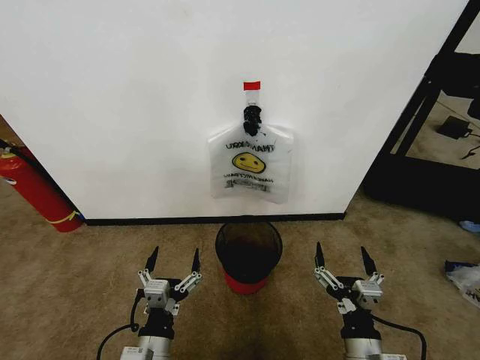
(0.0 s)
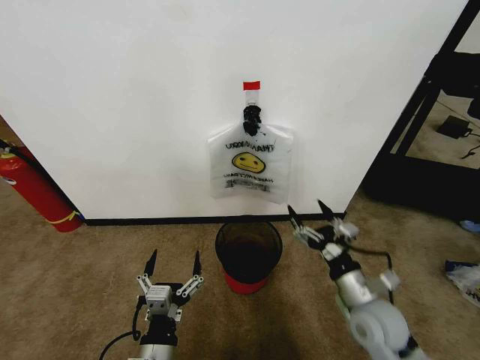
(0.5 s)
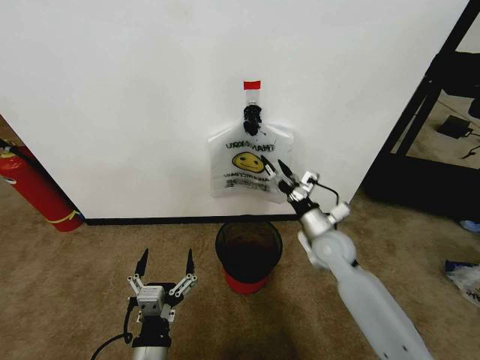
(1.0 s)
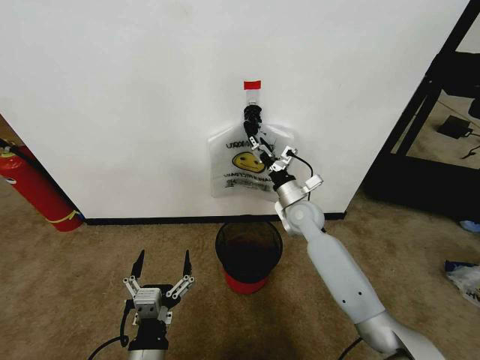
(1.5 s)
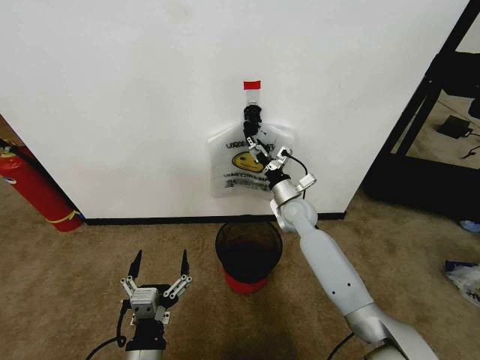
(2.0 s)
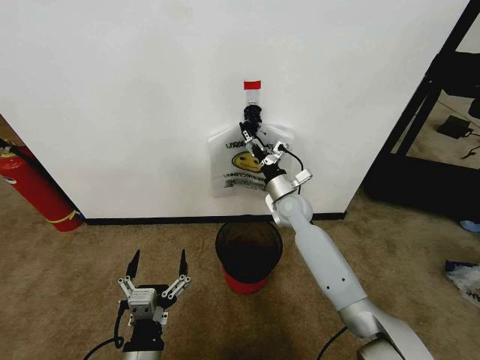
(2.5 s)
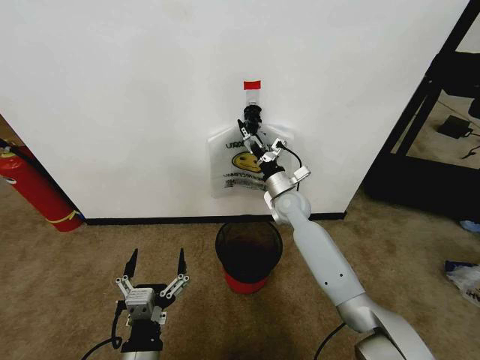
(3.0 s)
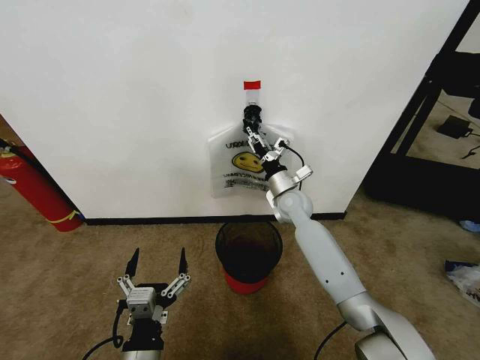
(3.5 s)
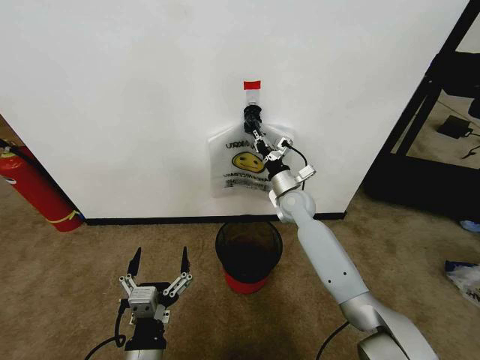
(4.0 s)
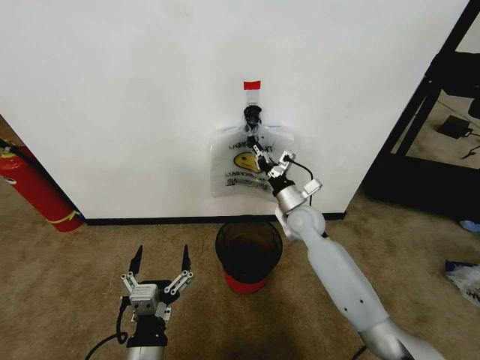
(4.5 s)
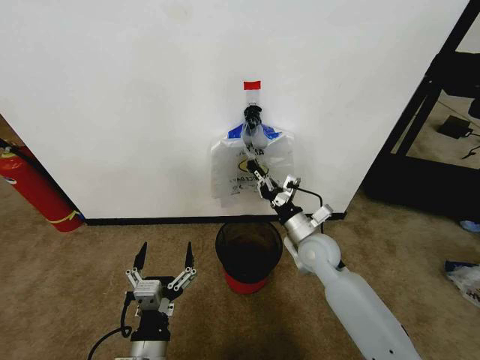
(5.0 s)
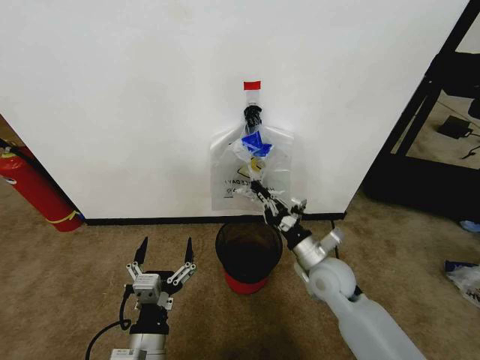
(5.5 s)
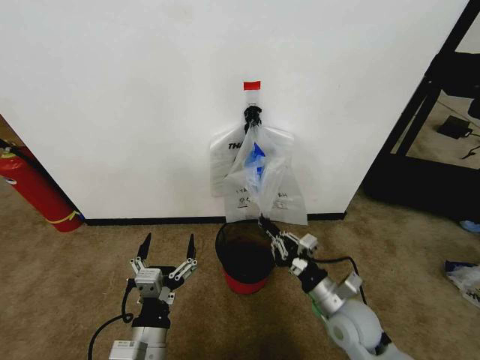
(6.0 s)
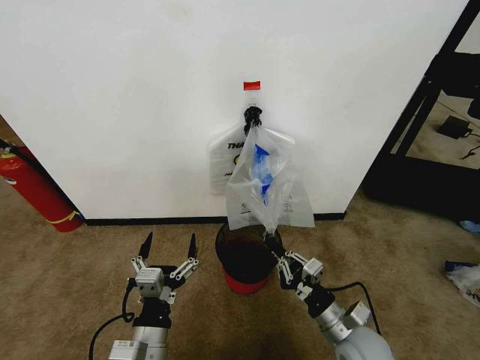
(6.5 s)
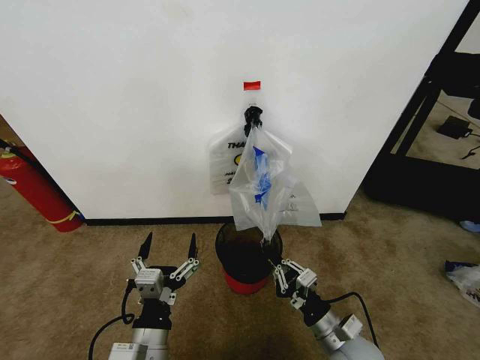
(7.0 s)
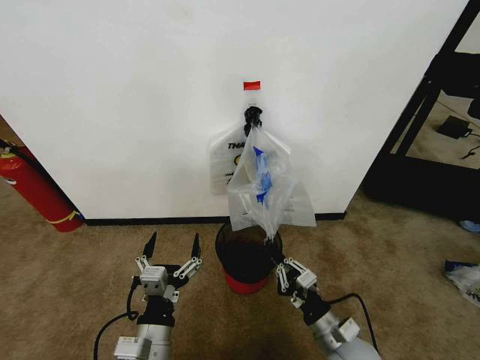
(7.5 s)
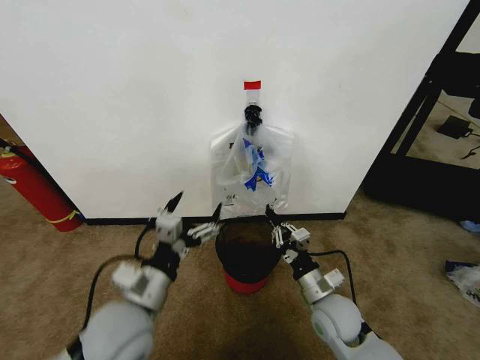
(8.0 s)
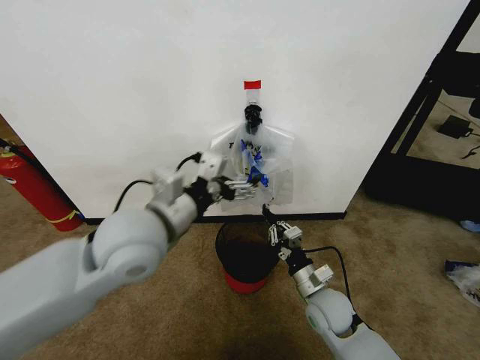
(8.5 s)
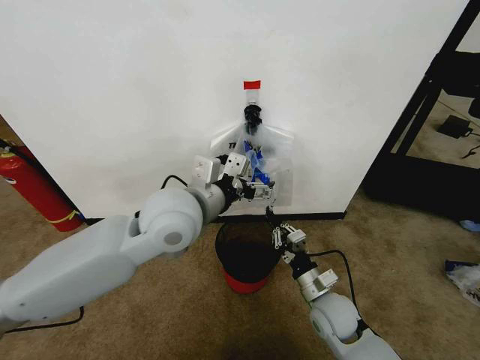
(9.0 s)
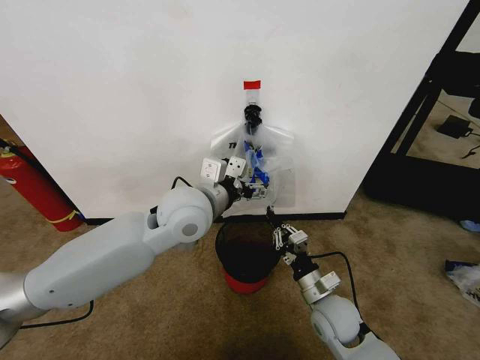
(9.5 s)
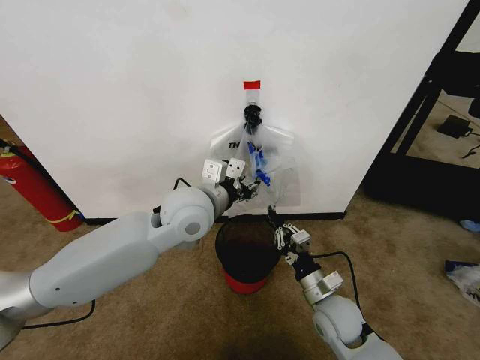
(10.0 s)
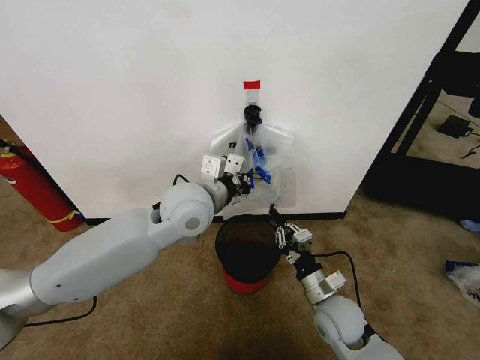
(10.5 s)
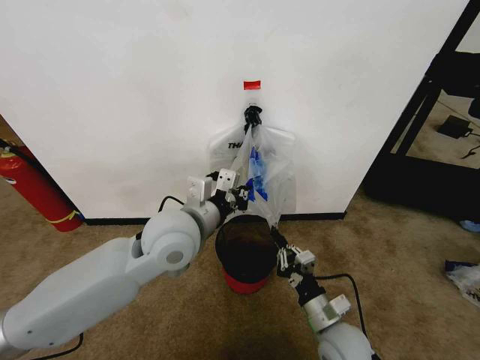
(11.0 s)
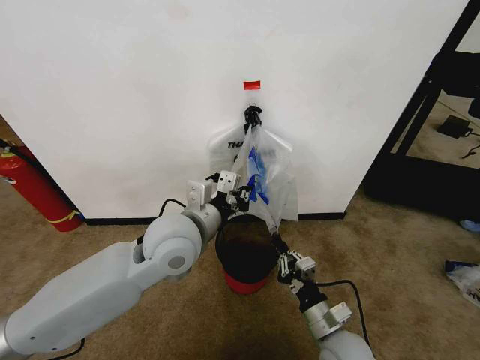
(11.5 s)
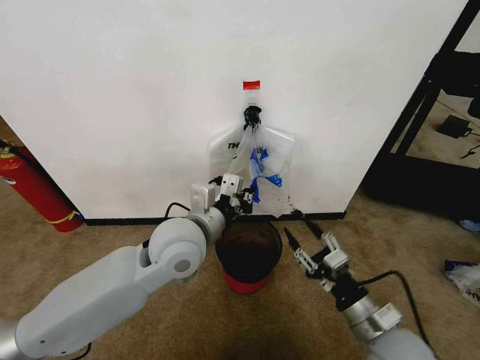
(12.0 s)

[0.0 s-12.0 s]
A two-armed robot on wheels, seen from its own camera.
Task of the whole recording: Pick up the garbage bag from the wall and place it over the trash bin.
2.0 to 4.0 s: The right gripper closes its fingers.
4.0 to 6.0 s: The right gripper travels backward by about 25 cm.
6.0 to 8.0 s: The right gripper reaches approximately 5 cm backward, then returns. The left gripper travels upward and forward by about 10 cm.
8.0 to 10.0 s: The left gripper travels forward, upward and to the right by some 20 cm, and closes.
10.0 to 12.0 s: The right gripper heads backward, upward and to the right, covering some 10 cm, and opens, while the left gripper travels backward by approximately 5 cm, and closes its fingers.

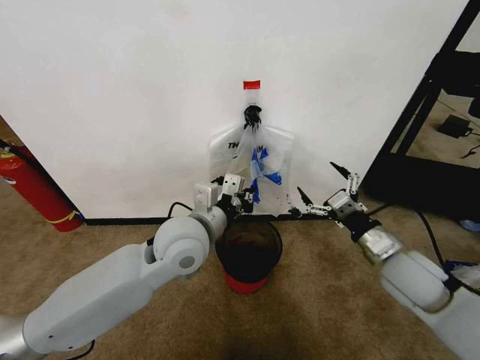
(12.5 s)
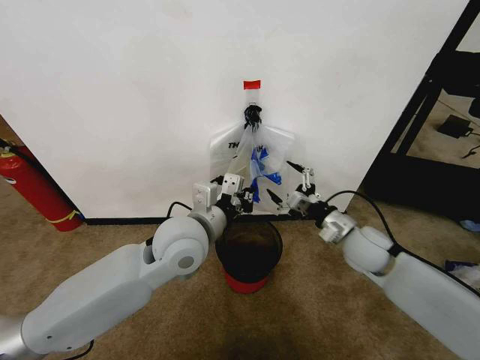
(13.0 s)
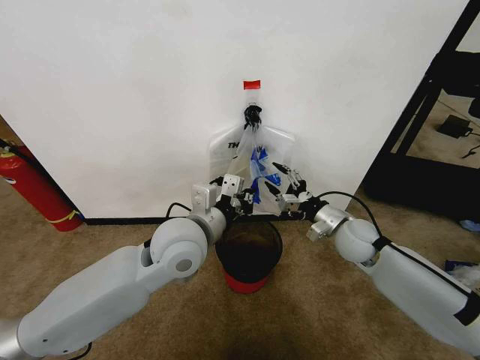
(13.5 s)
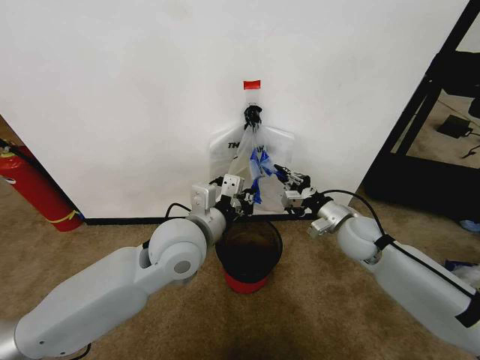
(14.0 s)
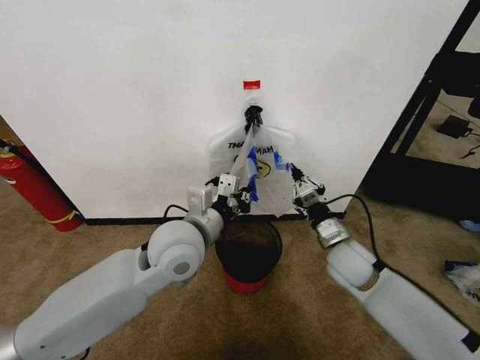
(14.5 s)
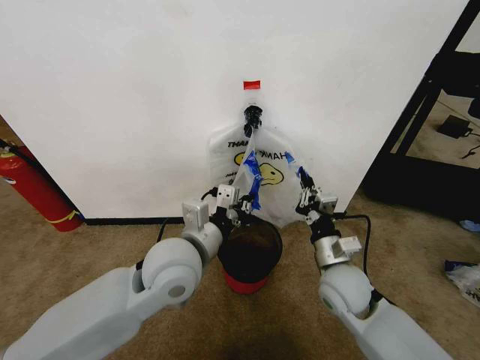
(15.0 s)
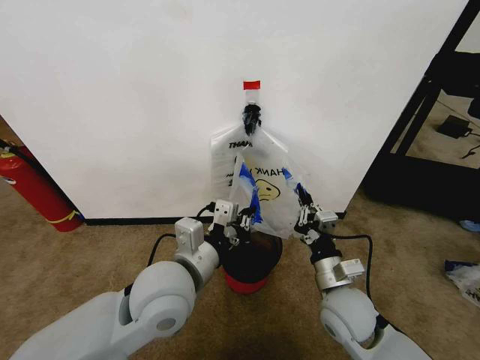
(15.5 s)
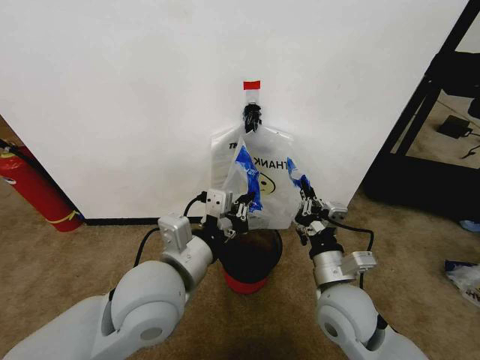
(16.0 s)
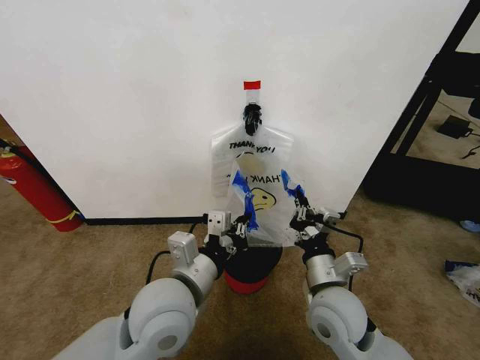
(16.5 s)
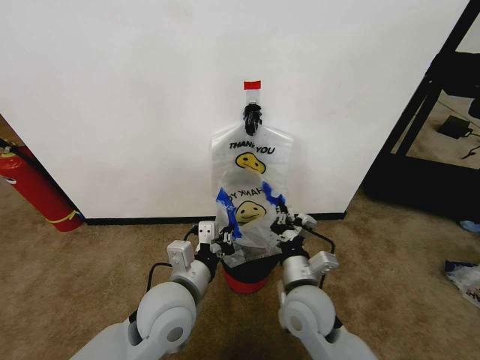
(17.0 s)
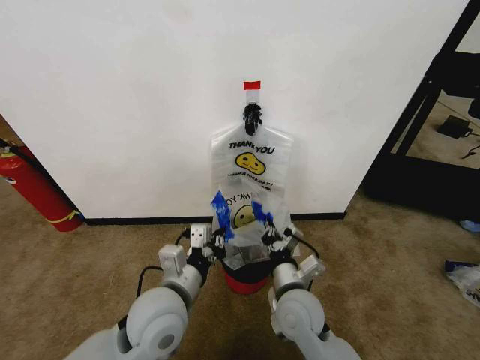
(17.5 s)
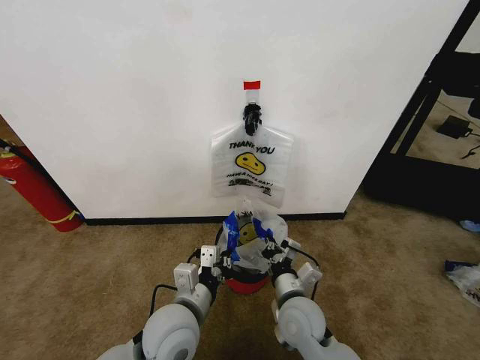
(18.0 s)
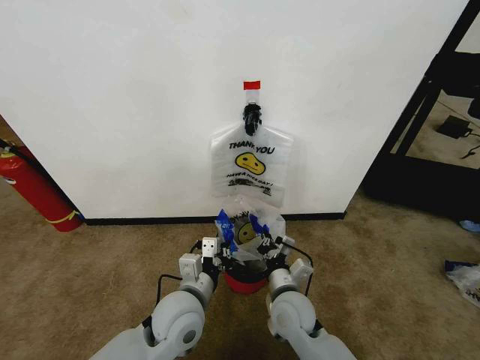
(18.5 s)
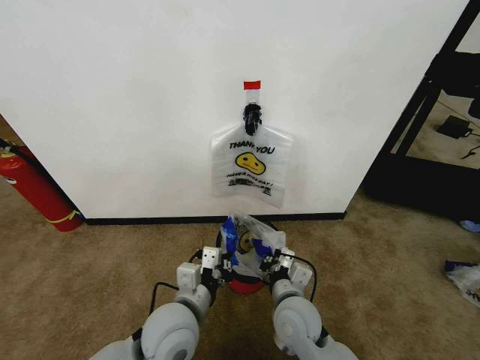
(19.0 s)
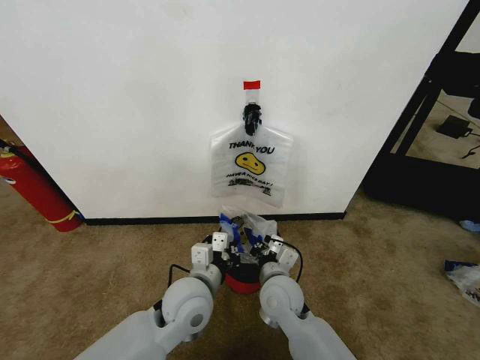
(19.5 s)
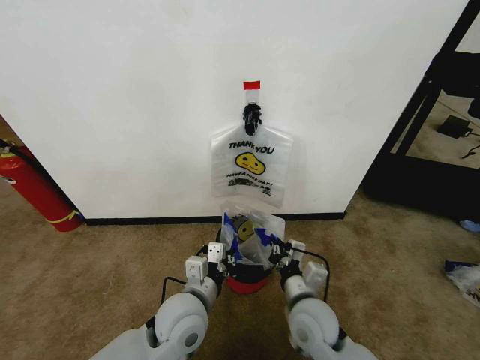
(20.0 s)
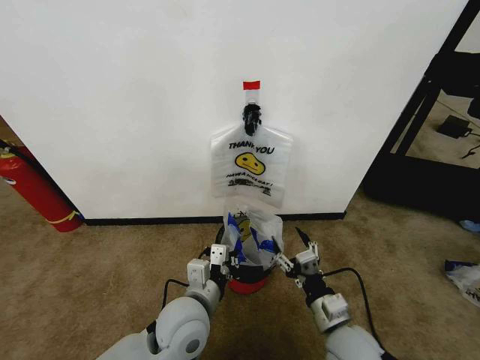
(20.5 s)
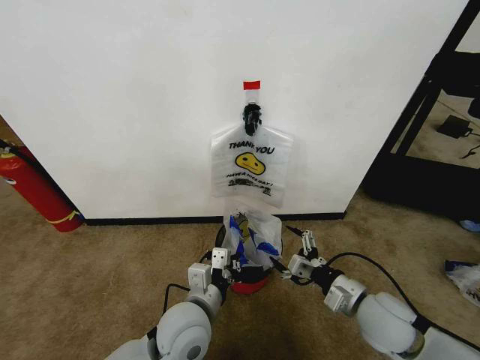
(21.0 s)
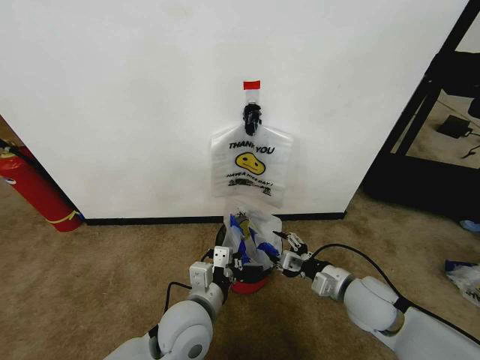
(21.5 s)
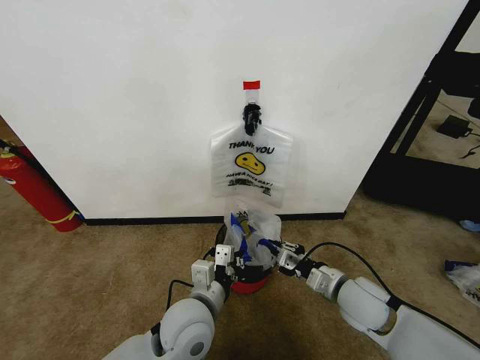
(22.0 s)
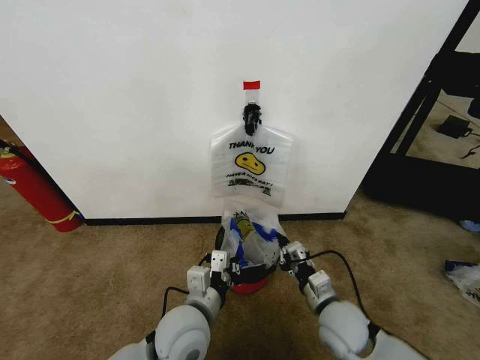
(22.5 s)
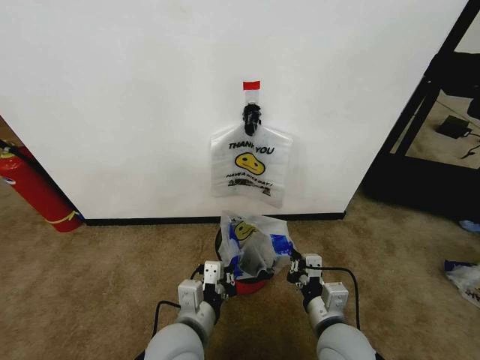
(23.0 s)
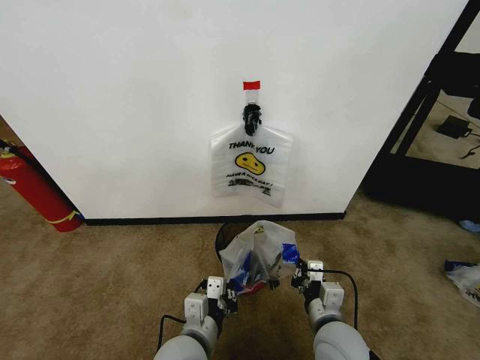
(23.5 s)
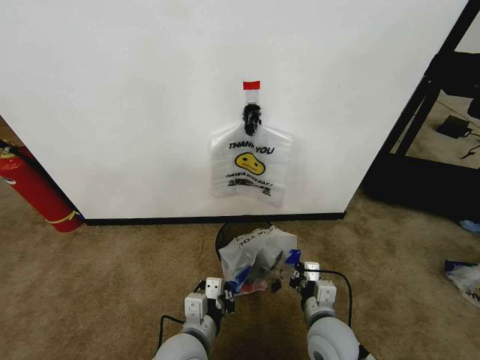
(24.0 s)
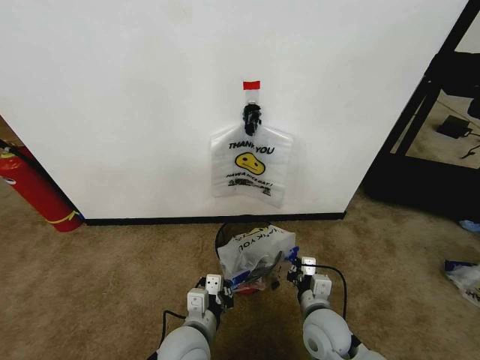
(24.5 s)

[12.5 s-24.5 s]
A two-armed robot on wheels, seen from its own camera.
Task of the whole recording: Pick up the garbage bag from the wall and place it over the trash bin.
12.5 to 14.5 s: The right gripper travels to the left, forward and downward by approximately 10 cm, and closes up.
14.5 to 16.5 s: The right gripper heads backward and to the left, covering some 15 cm. Meanwhile the left gripper goes roughly 10 cm backward.
16.5 to 18.5 s: The right gripper heads downward and to the left, covering approximately 10 cm. Meanwhile the left gripper is displaced downward by approximately 10 cm.
18.5 to 20.5 s: The right gripper moves to the right and backward, about 10 cm, and opens up.
20.5 to 22.5 s: The right gripper closes its fingers.
22.5 to 24.5 s: The left gripper is displaced downward by about 5 cm.

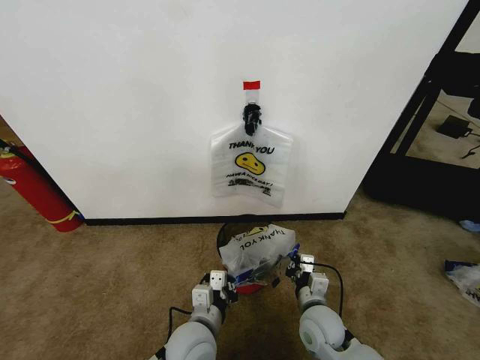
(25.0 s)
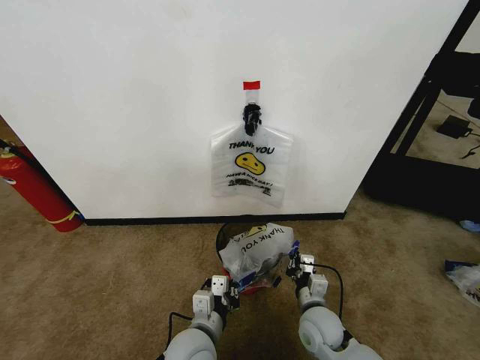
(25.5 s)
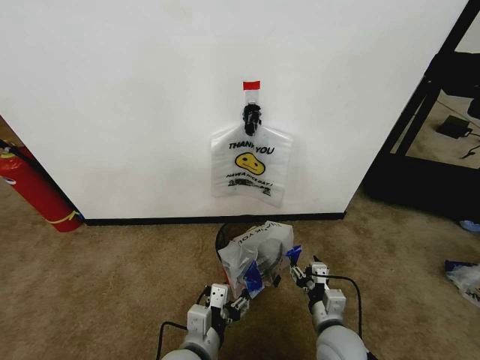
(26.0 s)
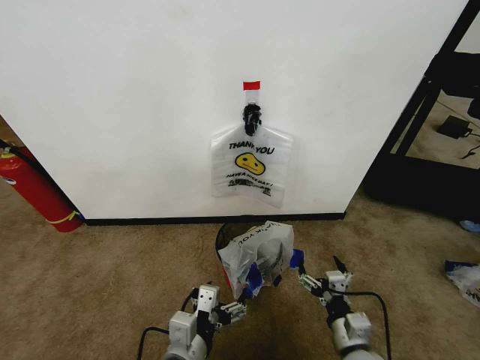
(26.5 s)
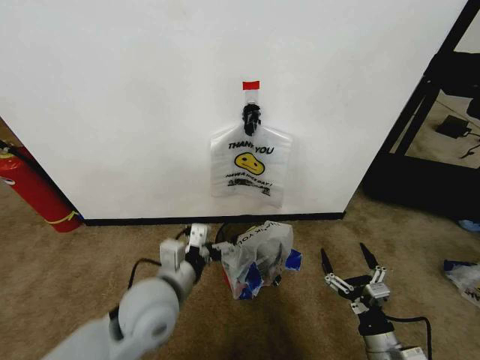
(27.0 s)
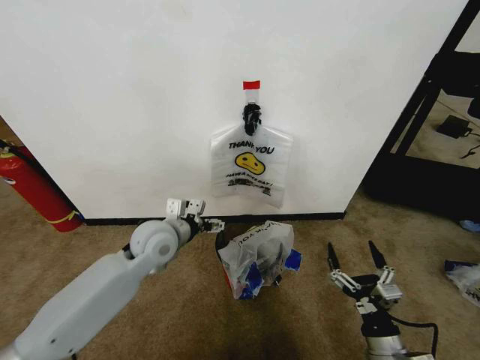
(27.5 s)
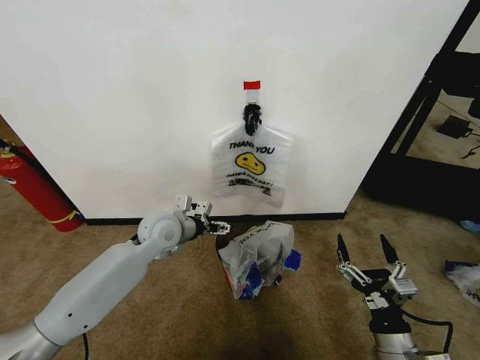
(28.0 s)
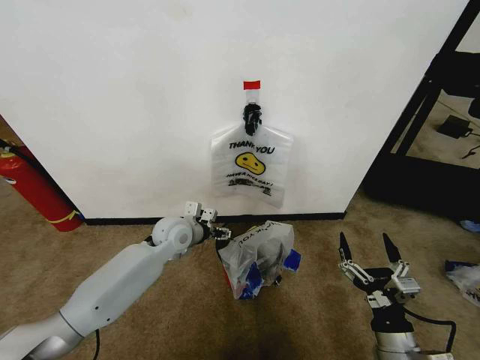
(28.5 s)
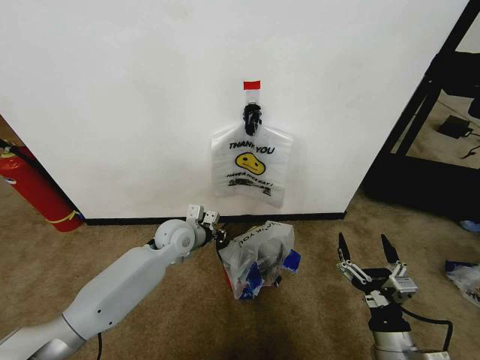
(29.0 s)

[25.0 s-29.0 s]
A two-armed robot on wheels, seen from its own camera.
Task of the whole recording: Pick up the garbage bag from the wall and place it over the trash bin.
25.0 to 27.0 s: The right gripper shifts some 15 cm to the right and backward, and opens up. Meanwhile the left gripper shifts about 15 cm upward and to the left, and opens.
27.0 to 29.0 s: The left gripper moves forward, about 20 cm, and closes, while the right gripper heads upward, covering roughly 5 cm.
